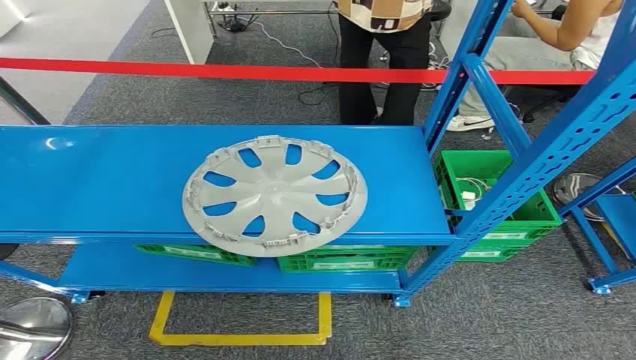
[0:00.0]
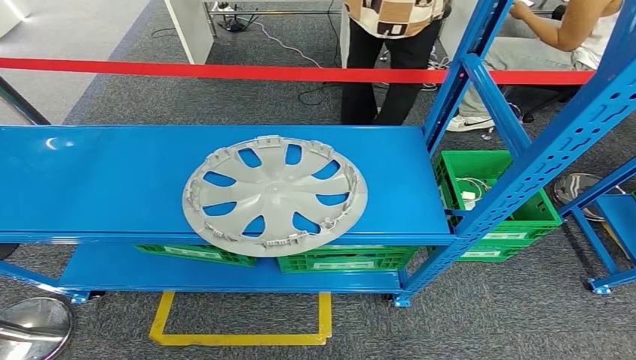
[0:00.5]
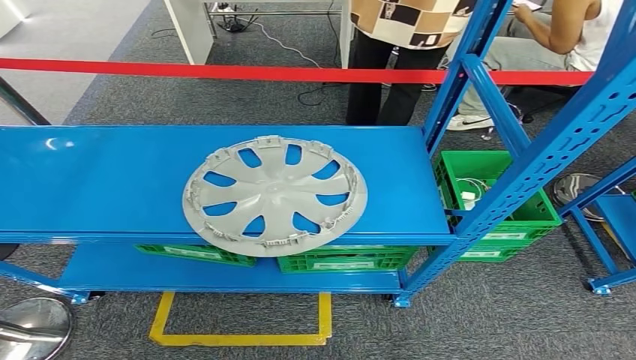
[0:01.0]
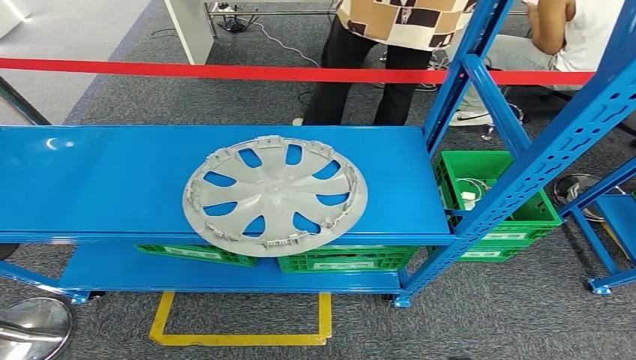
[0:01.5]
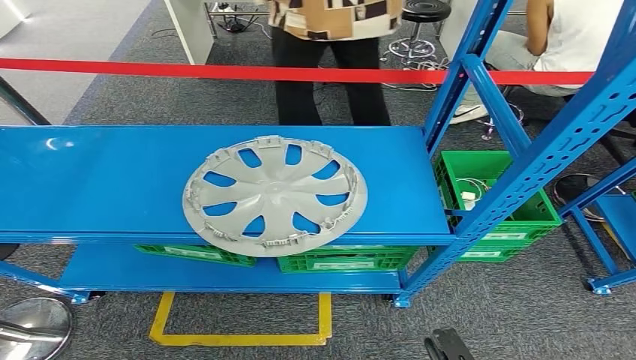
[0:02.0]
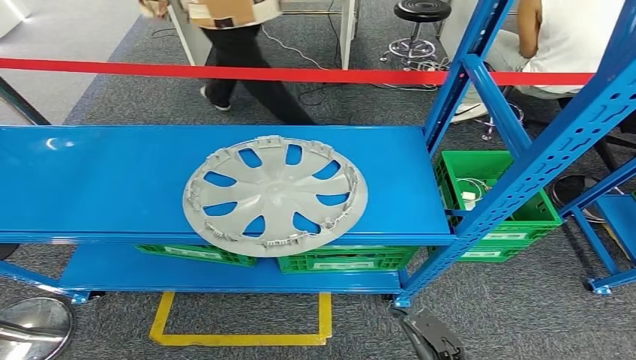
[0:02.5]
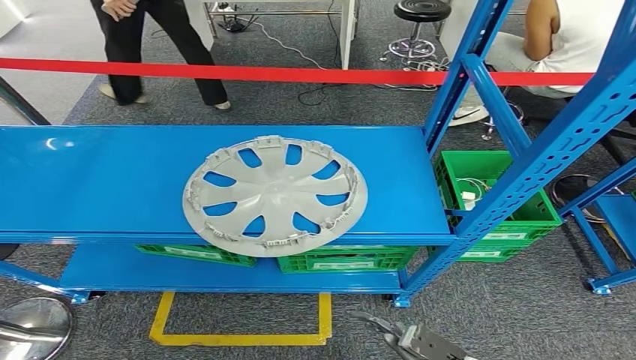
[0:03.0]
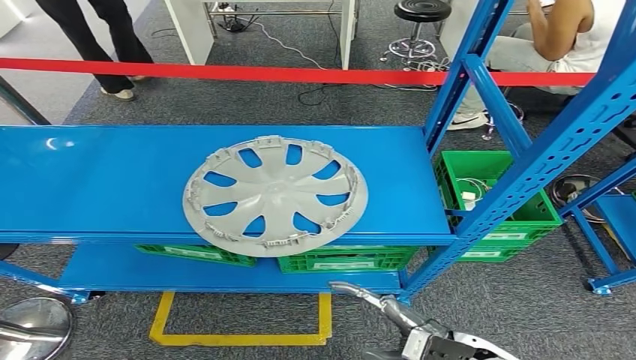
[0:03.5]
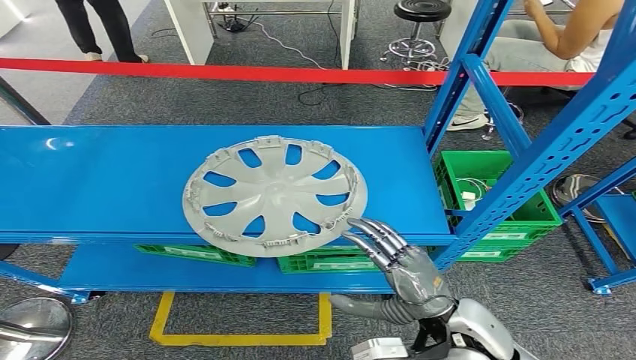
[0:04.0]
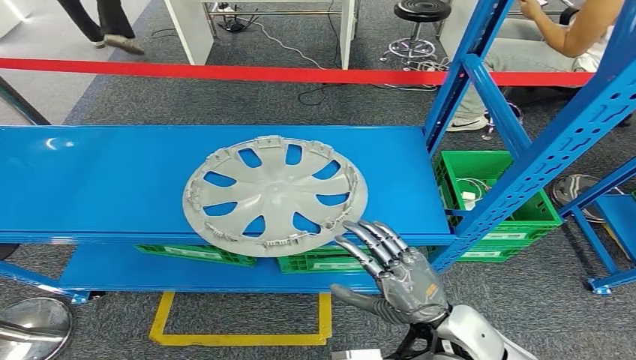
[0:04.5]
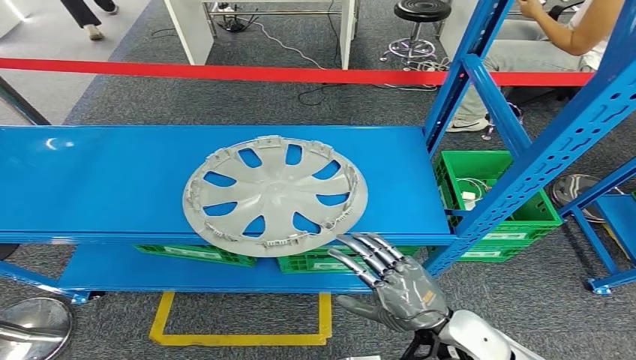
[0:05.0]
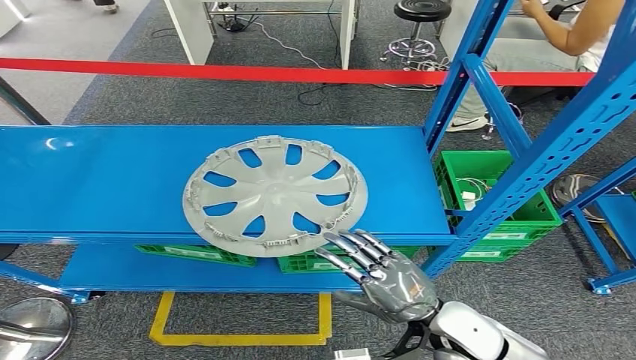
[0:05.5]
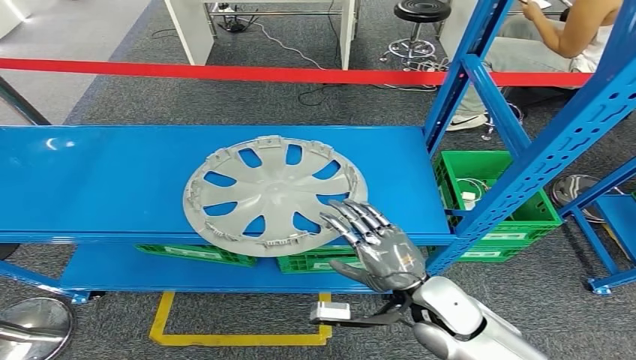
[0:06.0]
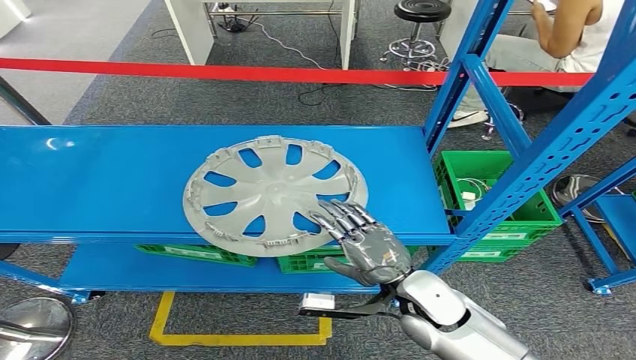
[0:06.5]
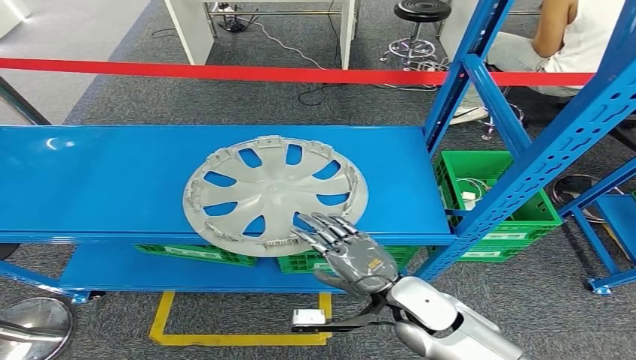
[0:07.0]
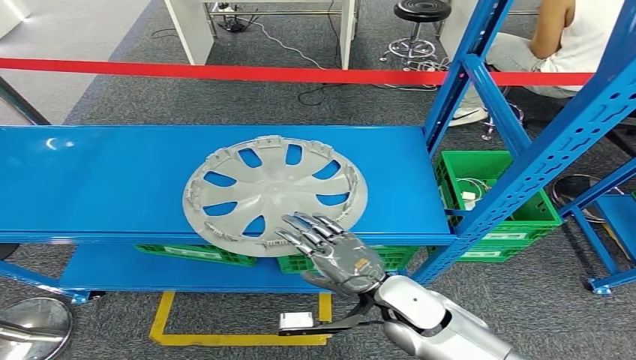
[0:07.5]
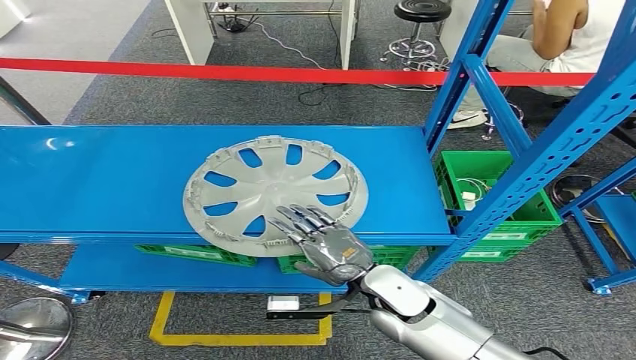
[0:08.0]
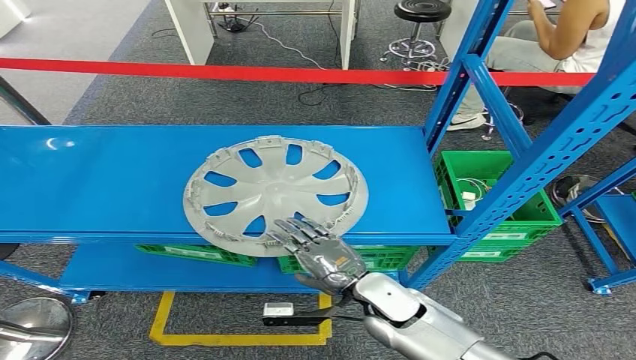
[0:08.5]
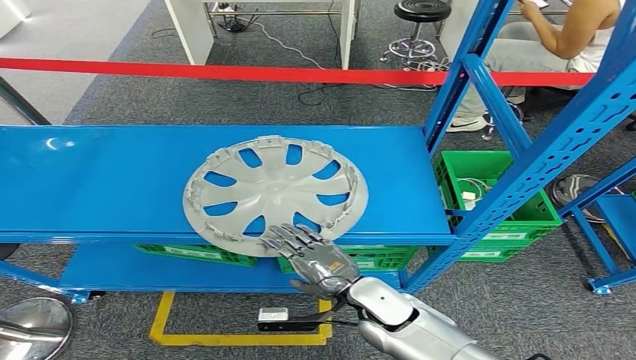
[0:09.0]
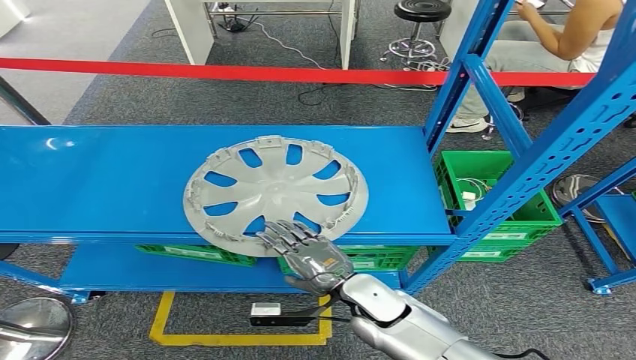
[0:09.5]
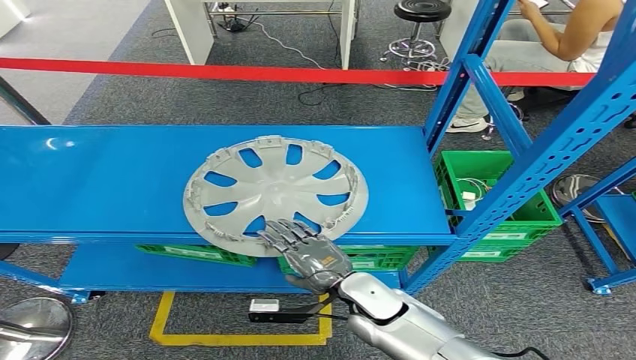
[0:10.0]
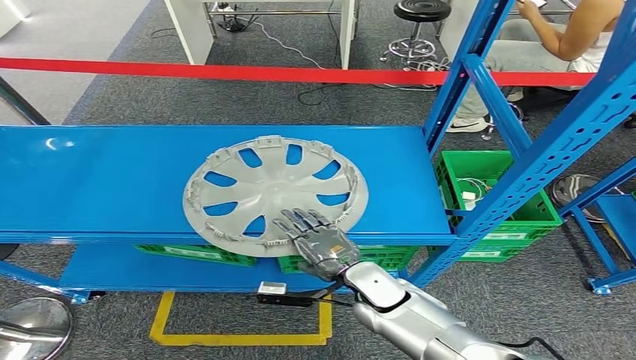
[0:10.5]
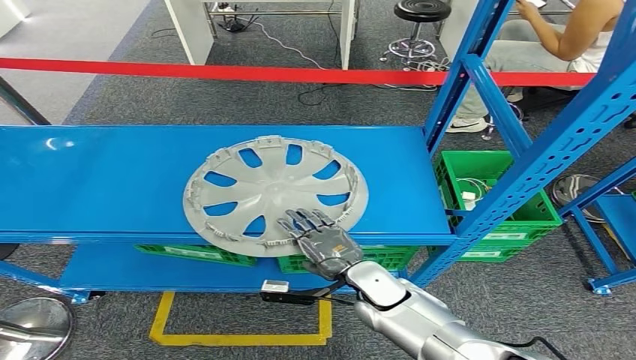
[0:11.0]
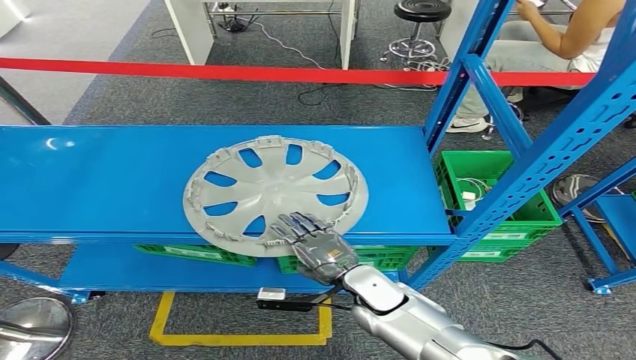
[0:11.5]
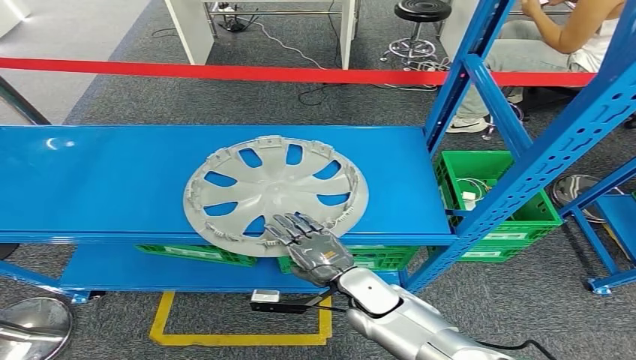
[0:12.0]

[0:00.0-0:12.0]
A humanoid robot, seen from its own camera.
0:02.0 to 0:04.0: The right hand goes approximately 25 cm upward and forward.
0:04.0 to 0:06.0: The right hand moves roughly 5 cm.
0:06.0 to 0:08.0: The right hand is displaced to the left by roughly 5 cm.
0:08.0 to 0:12.0: There are only small adjustments of the hands.

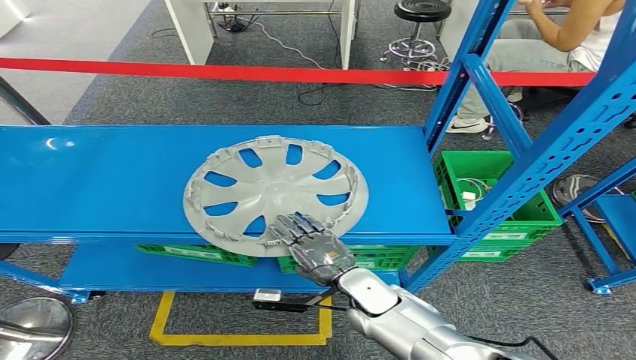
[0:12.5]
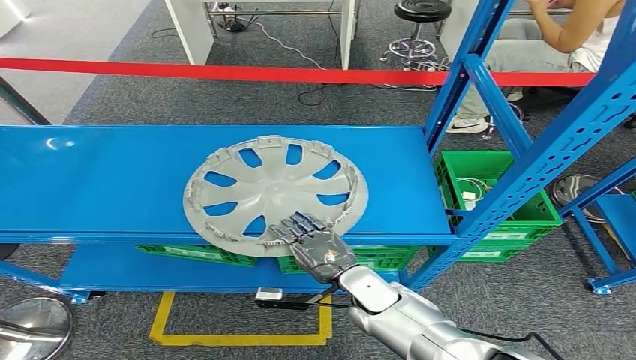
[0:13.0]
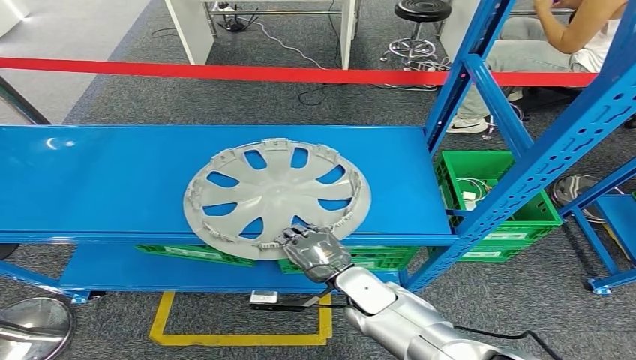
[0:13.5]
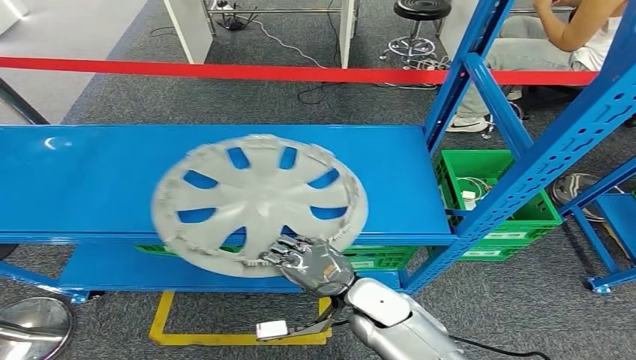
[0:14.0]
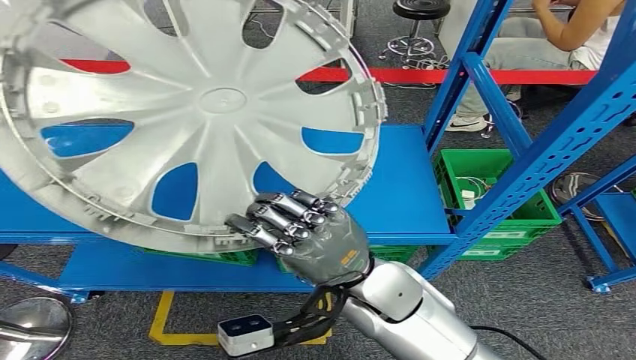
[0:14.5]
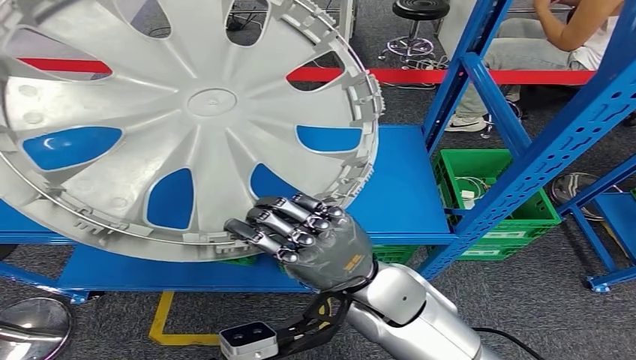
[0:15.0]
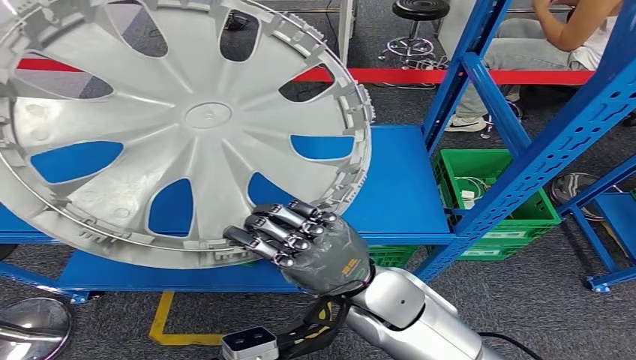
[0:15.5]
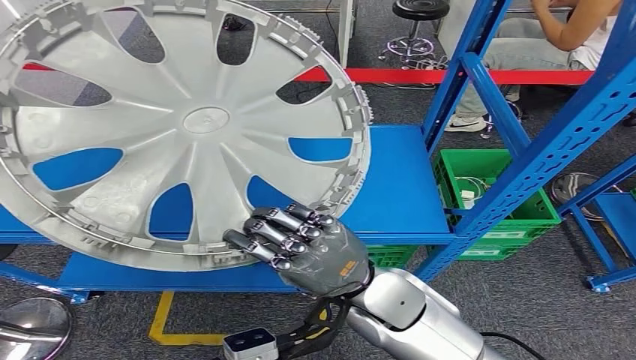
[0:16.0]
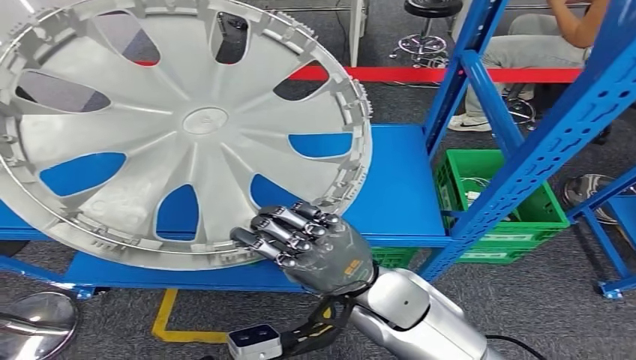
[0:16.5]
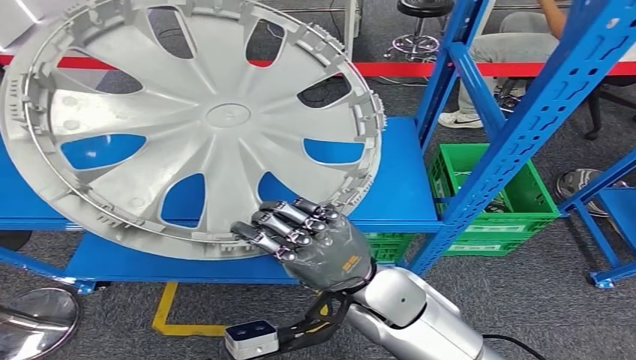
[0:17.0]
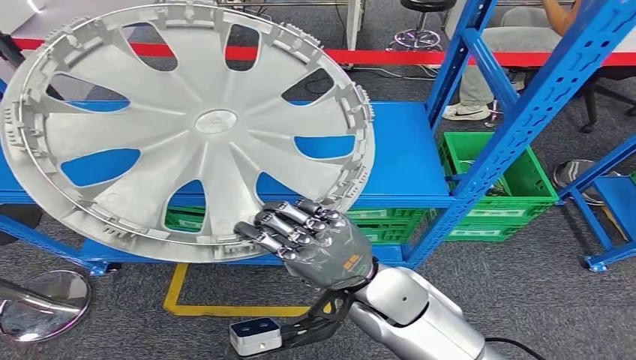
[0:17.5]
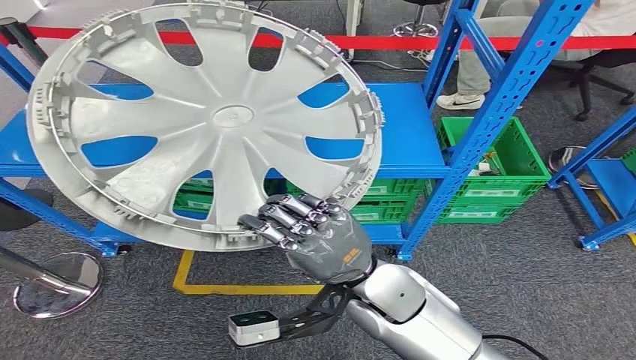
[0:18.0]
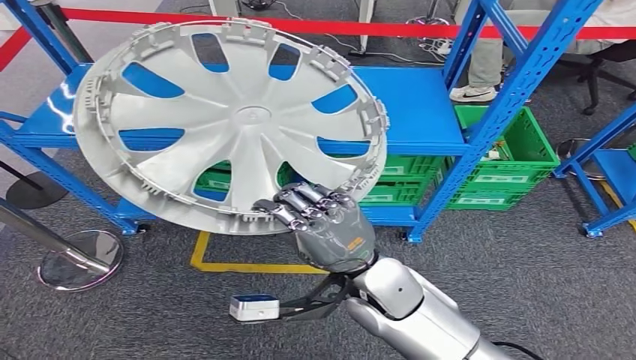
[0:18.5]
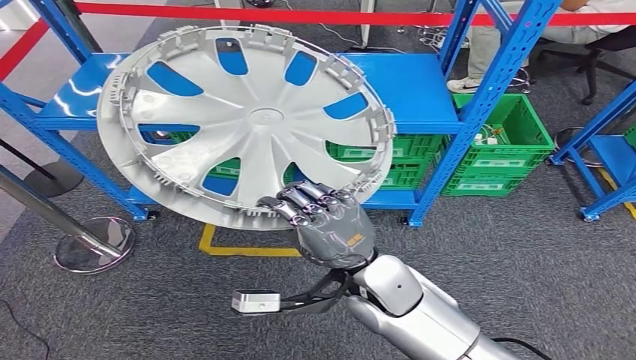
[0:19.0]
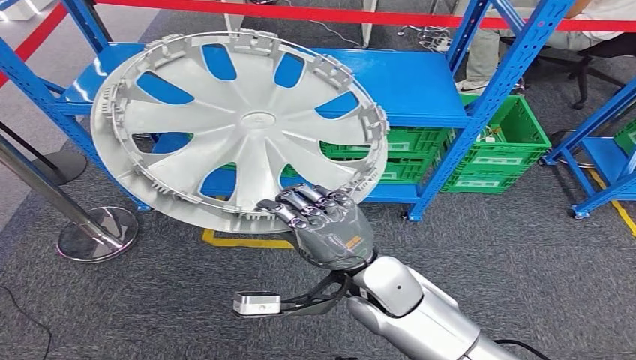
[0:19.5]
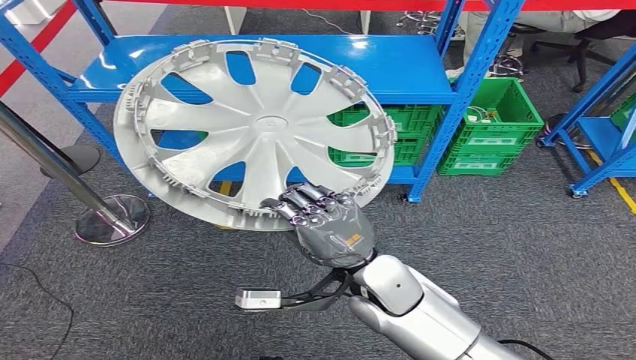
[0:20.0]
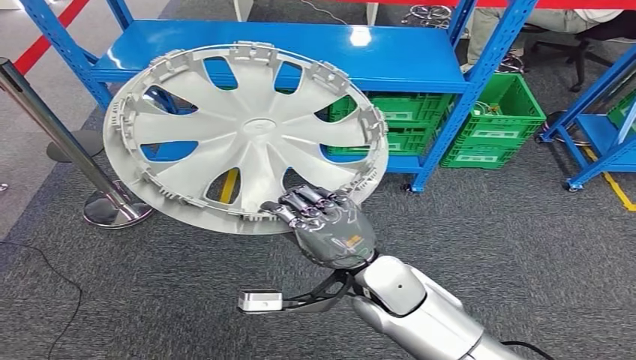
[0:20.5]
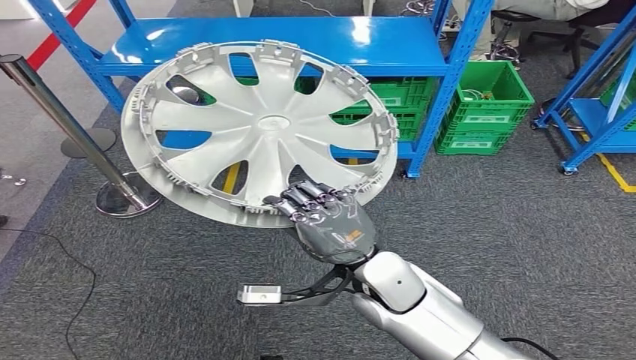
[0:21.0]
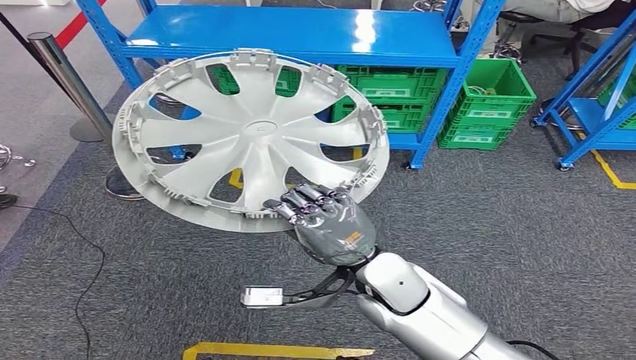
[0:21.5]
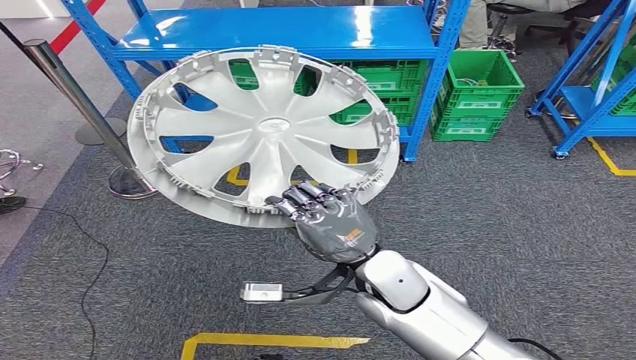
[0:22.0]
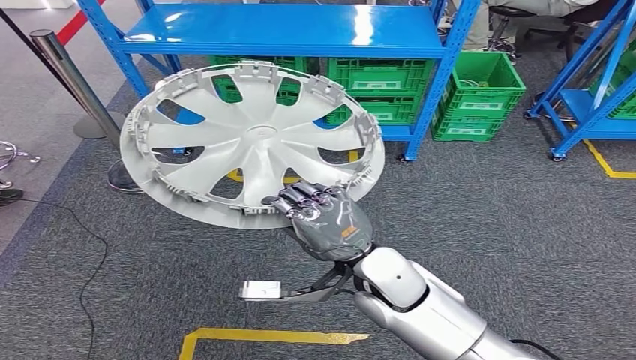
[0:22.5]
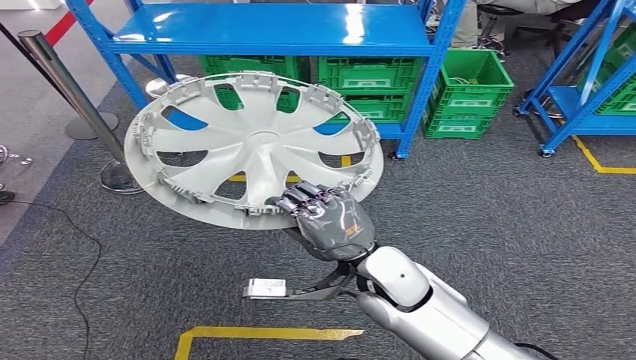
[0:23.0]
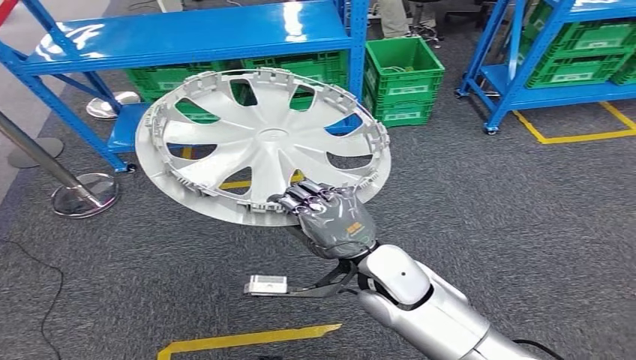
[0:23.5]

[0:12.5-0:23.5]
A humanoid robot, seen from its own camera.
Step, 0:12.5 to 0:14.5: Pick up the small parts from the shelf.
